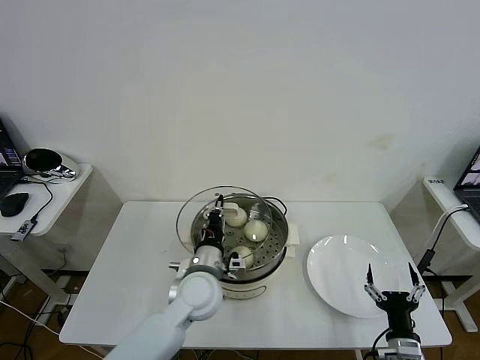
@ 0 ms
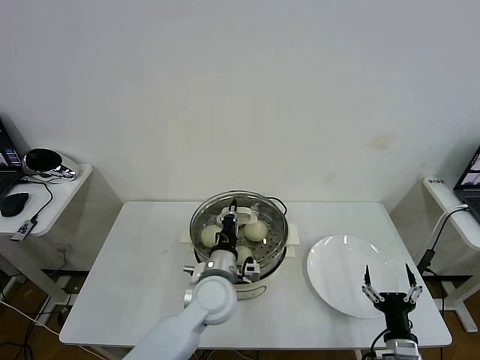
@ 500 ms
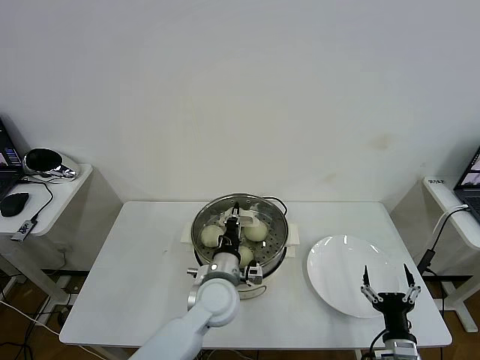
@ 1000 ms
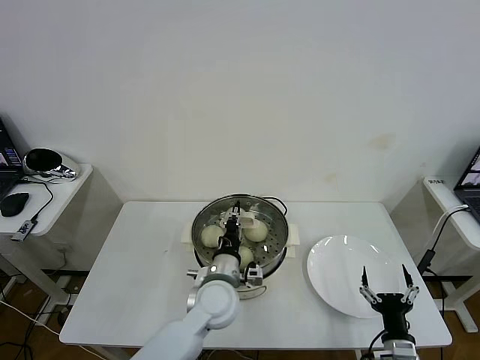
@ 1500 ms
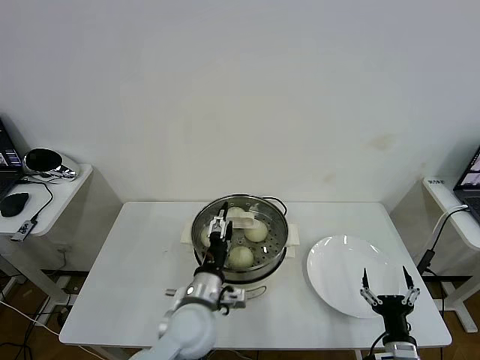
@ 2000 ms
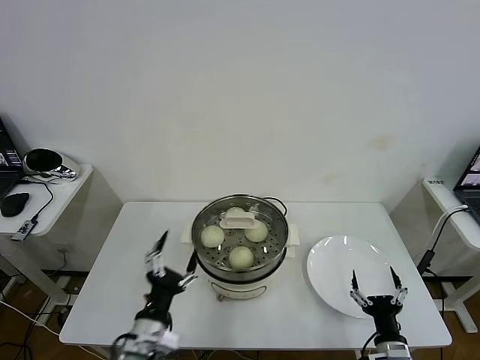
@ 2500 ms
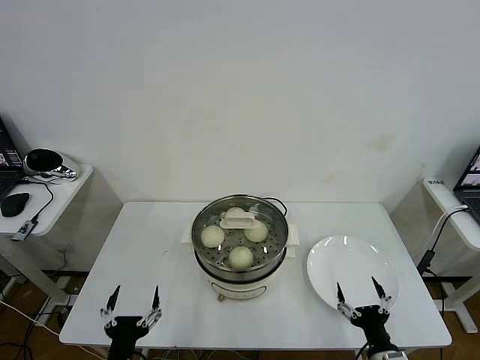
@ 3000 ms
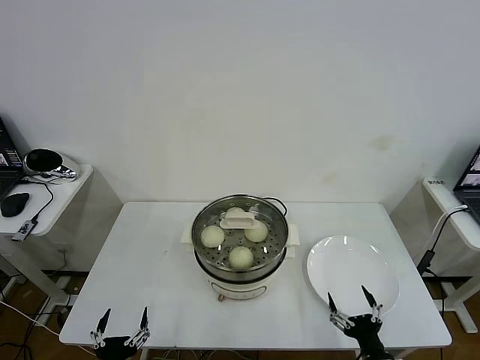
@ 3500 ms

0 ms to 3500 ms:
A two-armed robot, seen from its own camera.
Task of the whole recording: take steamed baozi put them in steamer then cover it.
Step, 0 ms to 2000 ms: Place the pot lid on the steamer with left gripper.
0 ms to 2000 ms: The left gripper goes approximately 5 cm backward, and opens its fingers.
2000 ms to 3500 ms: The left gripper travels backward, to the left and downward by about 30 cm.

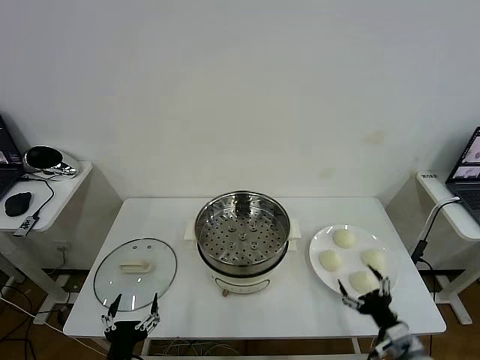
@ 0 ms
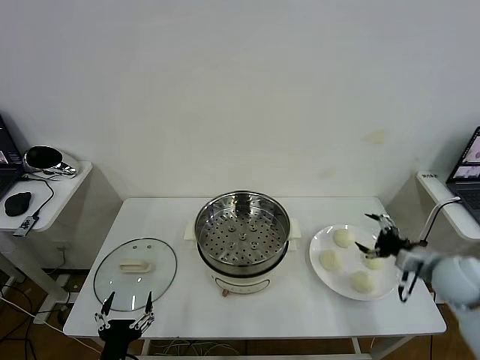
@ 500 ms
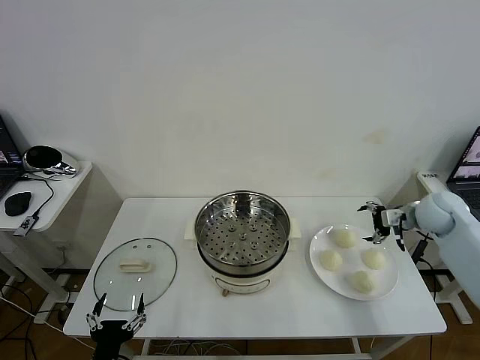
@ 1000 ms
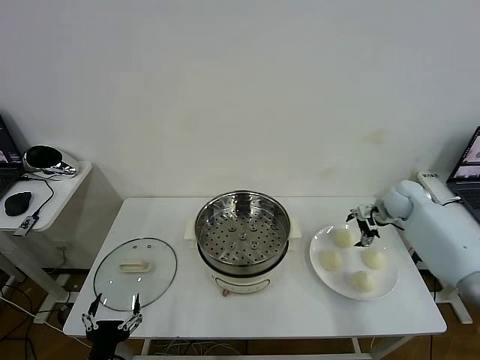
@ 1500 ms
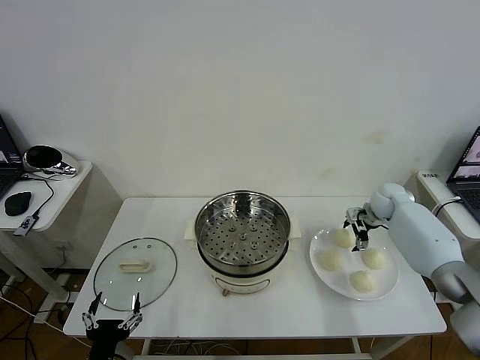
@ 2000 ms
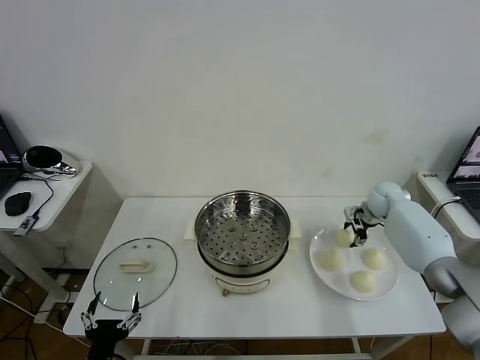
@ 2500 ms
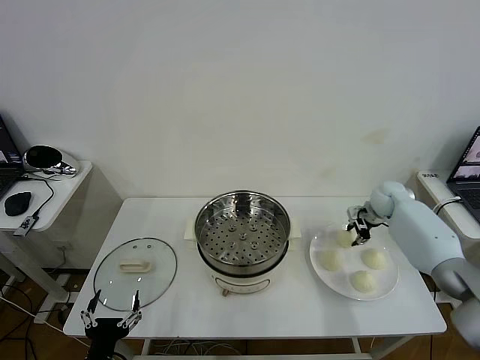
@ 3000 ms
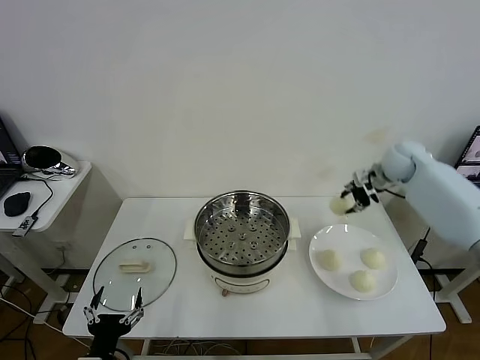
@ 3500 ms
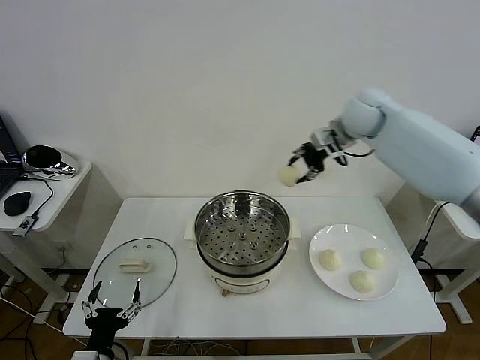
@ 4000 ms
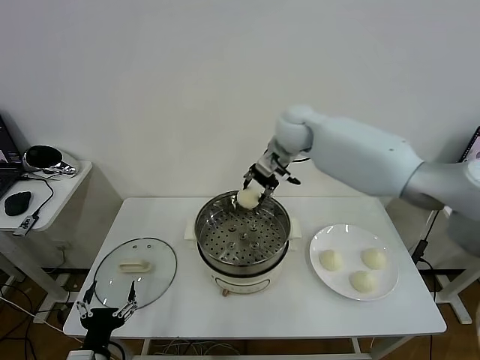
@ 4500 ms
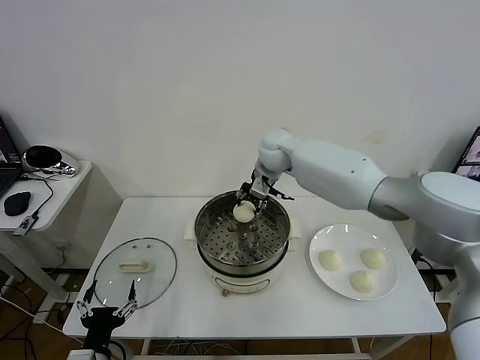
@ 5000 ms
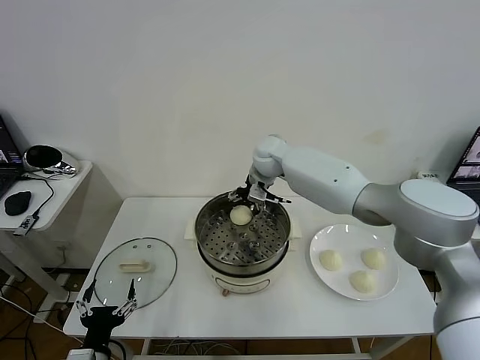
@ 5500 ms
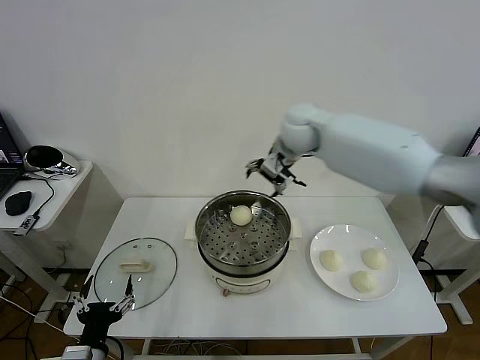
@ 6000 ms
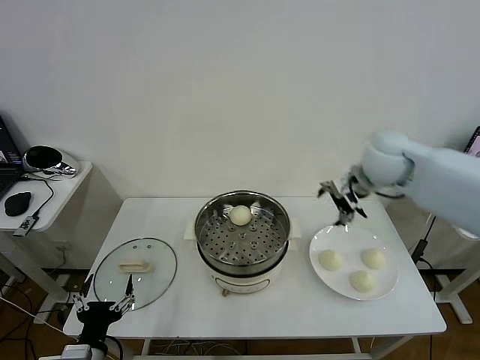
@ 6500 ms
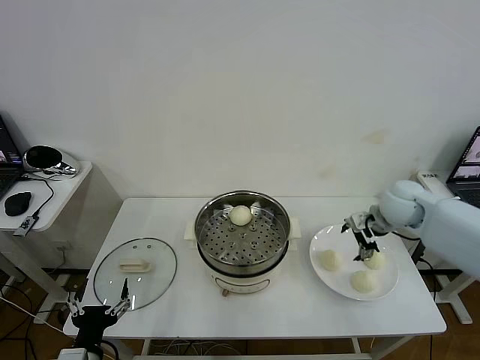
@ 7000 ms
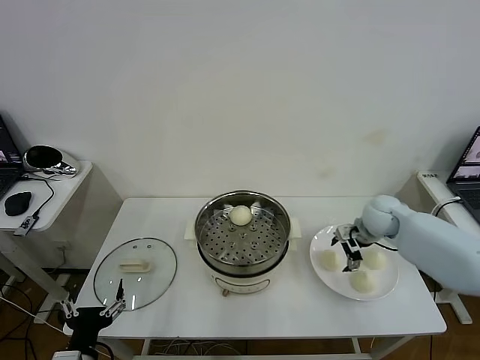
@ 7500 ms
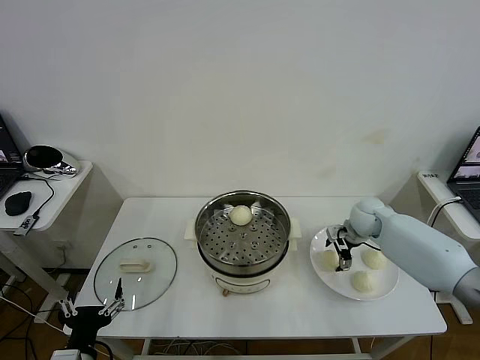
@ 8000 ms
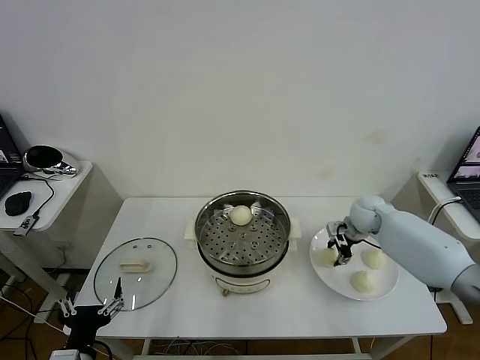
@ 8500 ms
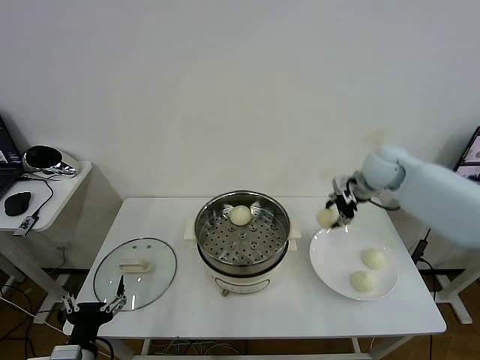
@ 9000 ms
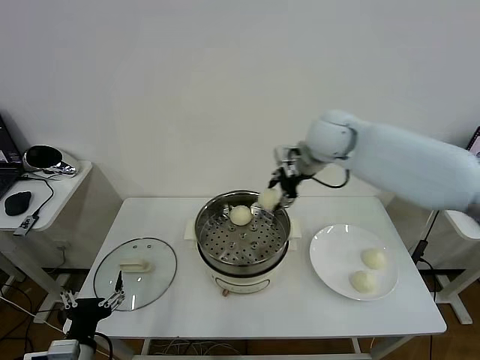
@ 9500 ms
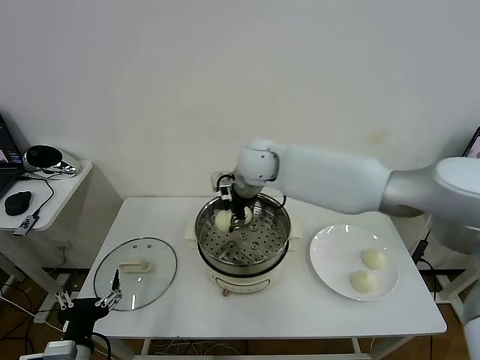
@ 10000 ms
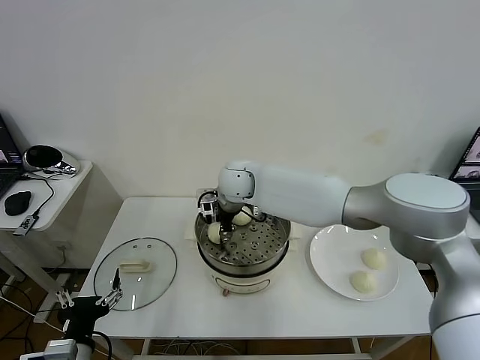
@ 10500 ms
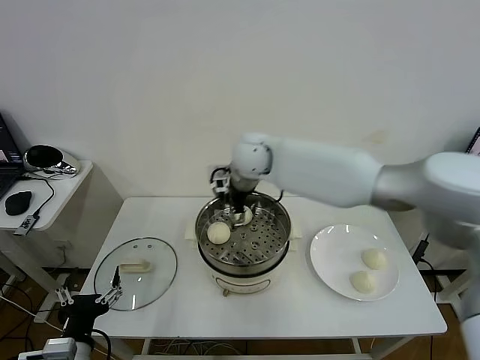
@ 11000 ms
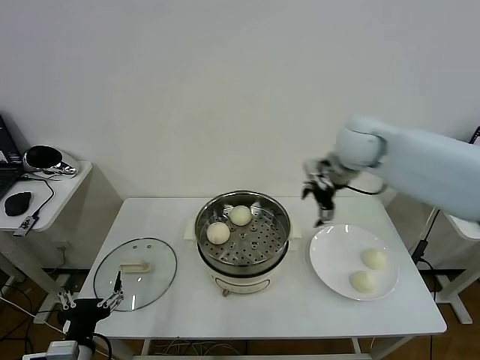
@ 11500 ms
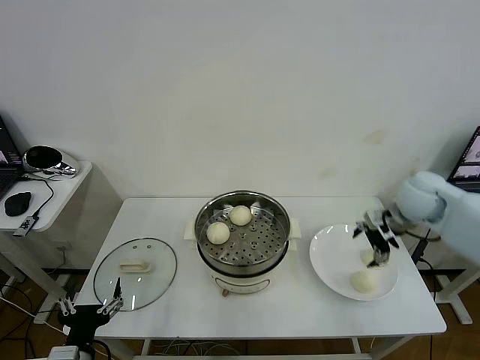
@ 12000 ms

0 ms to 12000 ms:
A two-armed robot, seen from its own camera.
Task of the whole recording: take steamed baozi put them in steamer then cover it.
Step, 0 ms to 2500 ms: Grasp the baozi in the plate with right gripper.
Step, 3000 ms to 5500 ms: Place the baozi on the steamer with right gripper.
Step, 6000 ms to 8000 ms: Grasp the baozi in the plate with right gripper.
Step, 8500 ms to 10500 ms: Place the baozi on the steamer with right gripper.
2000 ms to 4000 ms: The right gripper heads upward and to the left, covering some 30 cm, and closes up.
4000 ms to 6000 ms: The right gripper shifts roughly 15 cm to the left, and opens its fingers.
6000 ms to 8000 ms: The right gripper shifts approximately 30 cm downward and to the right.
8000 ms to 10000 ms: The right gripper travels to the left and upward by some 35 cm, and closes its fingers.
10000 ms to 12000 ms: The right gripper goes roughly 35 cm to the right, and opens its fingers.

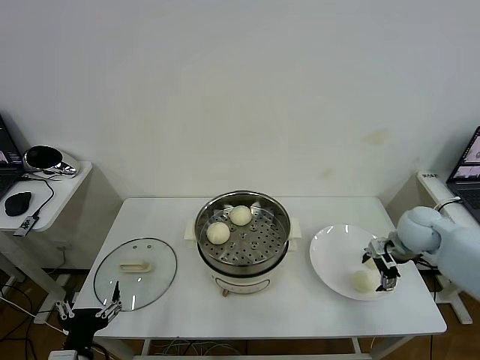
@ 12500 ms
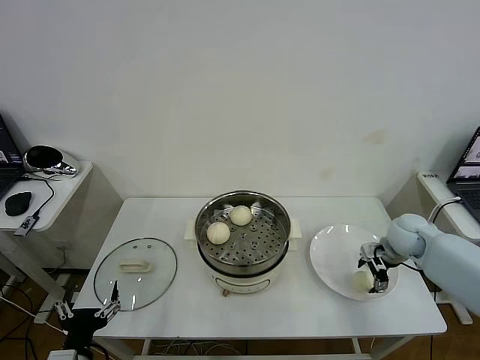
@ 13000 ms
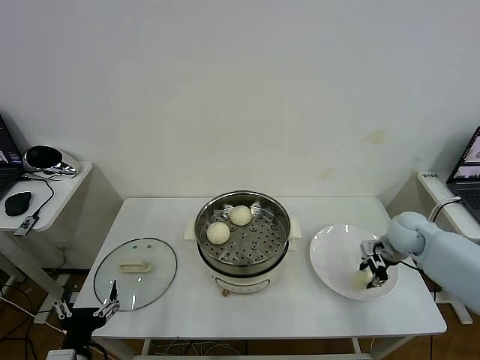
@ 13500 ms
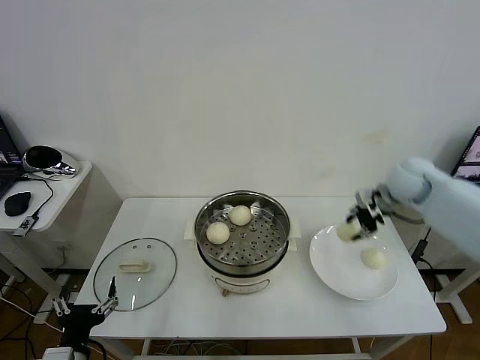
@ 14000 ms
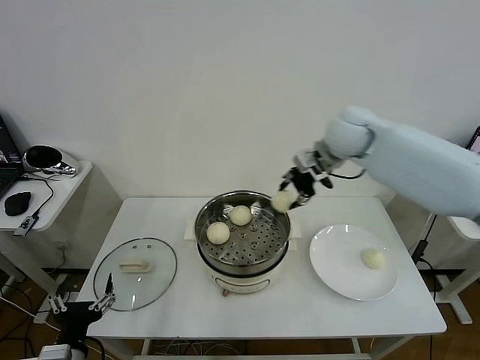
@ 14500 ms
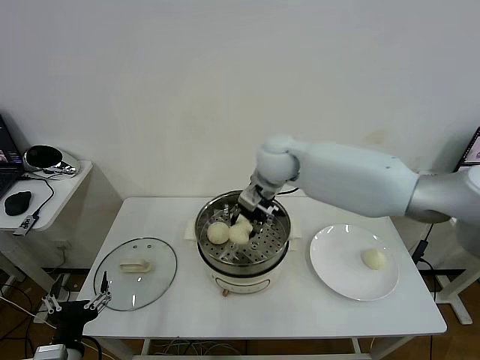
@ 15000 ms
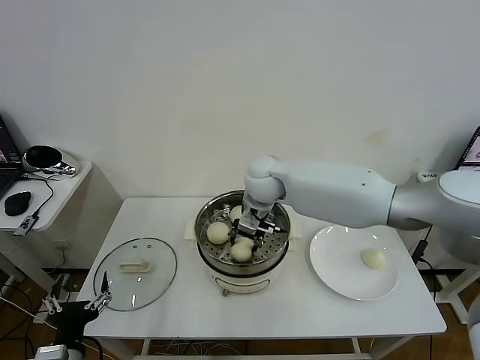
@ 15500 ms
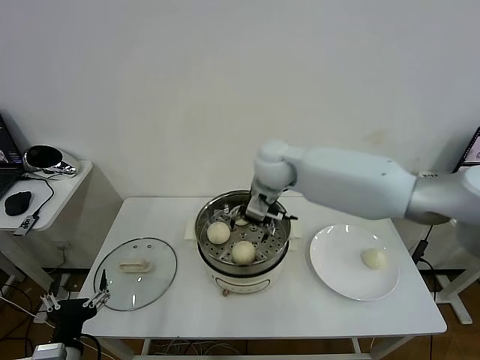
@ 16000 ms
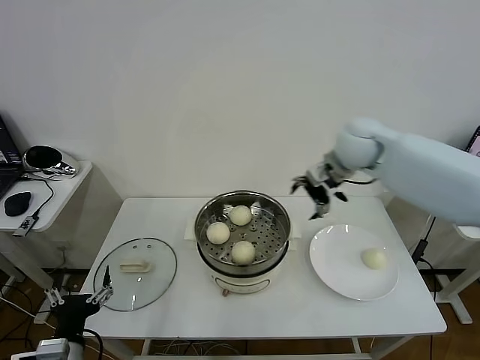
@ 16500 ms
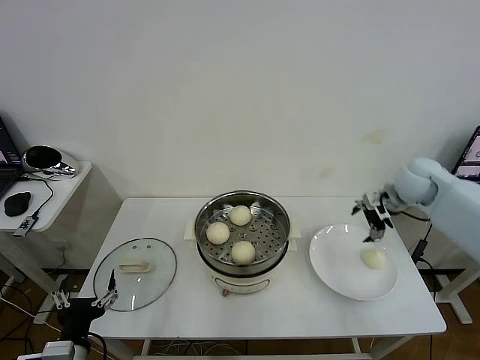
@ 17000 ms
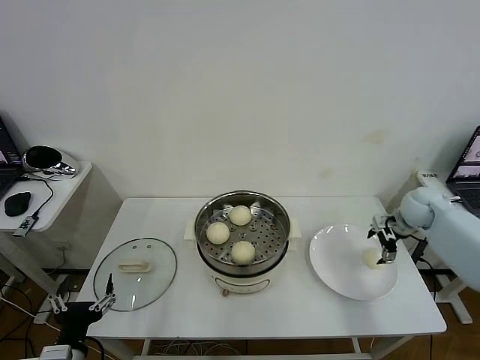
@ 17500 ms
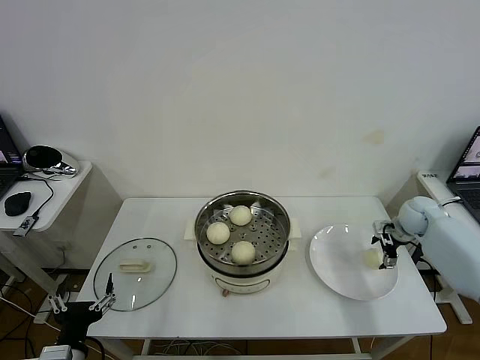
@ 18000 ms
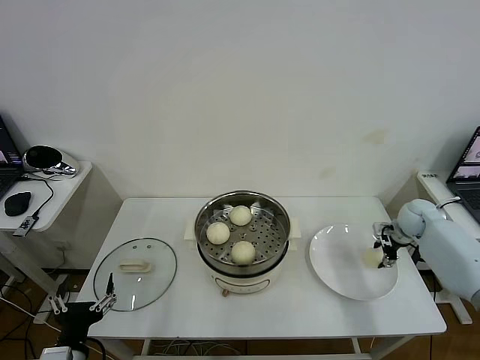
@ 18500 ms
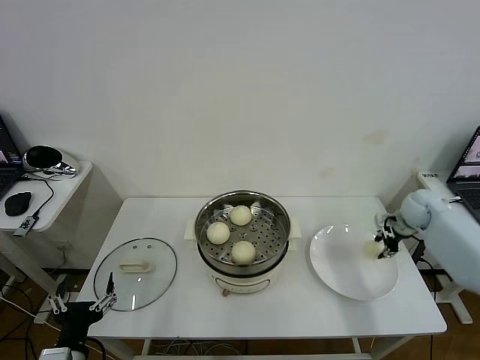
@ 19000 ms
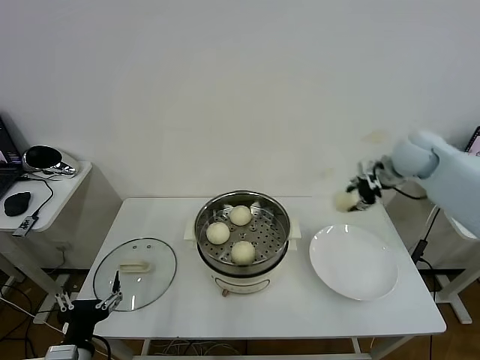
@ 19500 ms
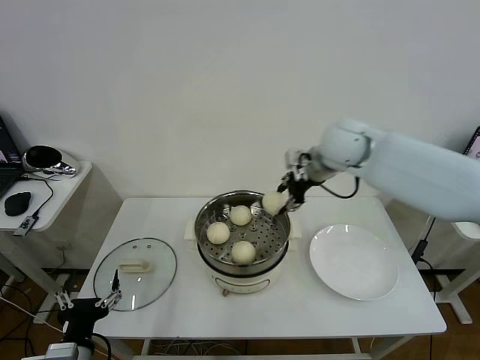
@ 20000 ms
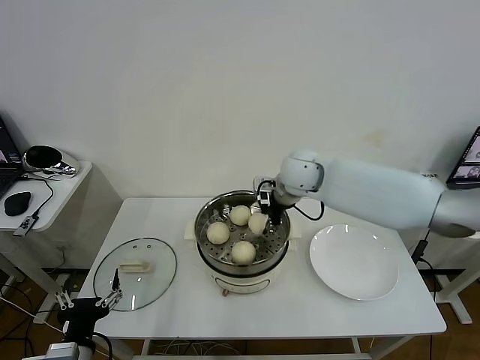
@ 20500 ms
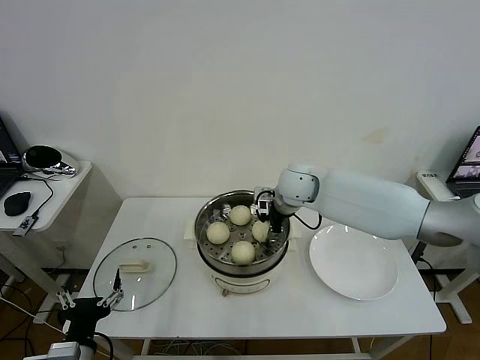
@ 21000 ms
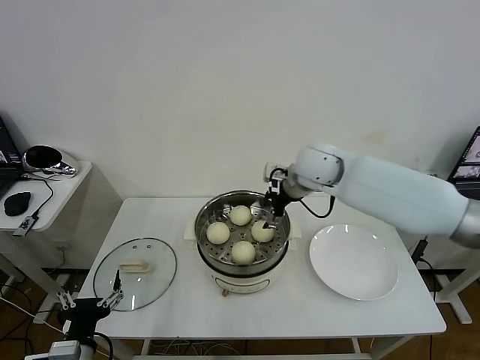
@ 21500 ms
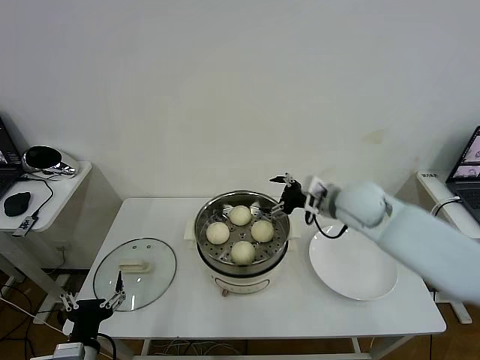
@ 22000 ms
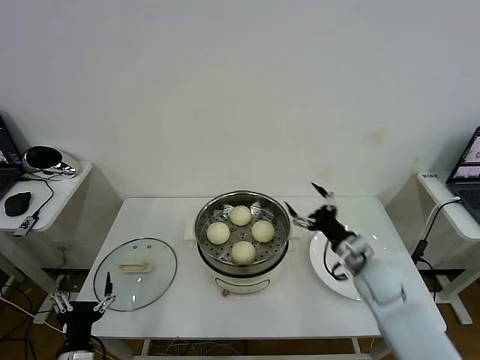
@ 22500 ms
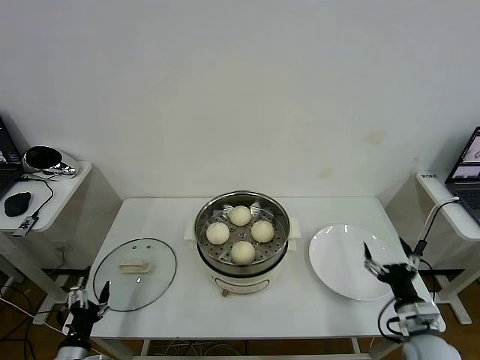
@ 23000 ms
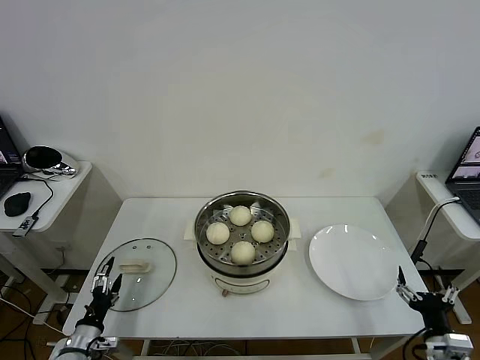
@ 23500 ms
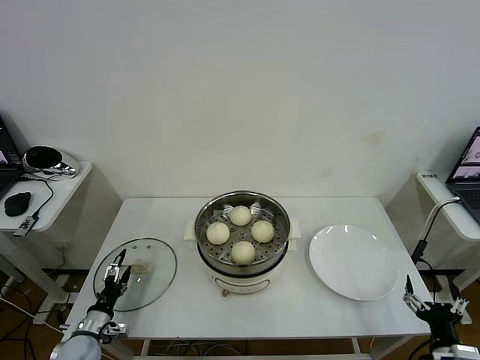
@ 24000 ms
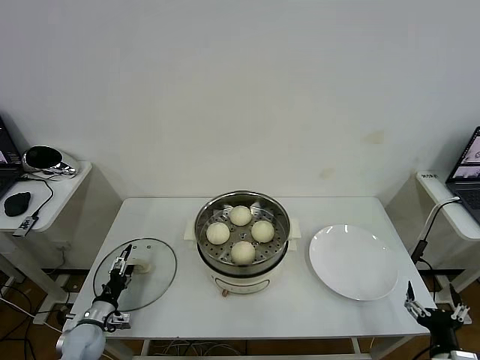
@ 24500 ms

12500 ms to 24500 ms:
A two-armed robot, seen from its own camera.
Task of the whole recording: take steamed baozi put them in steamer then cover it.
Step, 14000 ms to 15500 ms: Place the baozi on the steamer with right gripper.
Step, 16000 ms to 18500 ms: Grasp the baozi in the plate with right gripper.
Step, 19000 ms to 21000 ms: Place the baozi on the steamer with right gripper.
12500 ms to 14500 ms: The right gripper shifts approximately 30 cm upward, to the left and forward, and closes up.
14500 ms to 16500 ms: The right gripper travels to the left and back again, some 15 cm each way, and opens its fingers.
16500 ms to 18500 ms: The right gripper travels to the right and downward by about 35 cm, and closes its fingers.
18500 ms to 20500 ms: The right gripper heads to the left and upward, covering roughly 40 cm, and closes.
20500 ms to 22500 ms: The right gripper goes up and down, approximately 20 cm each way, reversing 2 times, and opens; the left gripper moves downward, some 5 cm.
22500 ms to 24500 ms: The left gripper goes approximately 20 cm forward, downward and to the left. Meanwhile the right gripper moves backward and to the right, some 25 cm.
